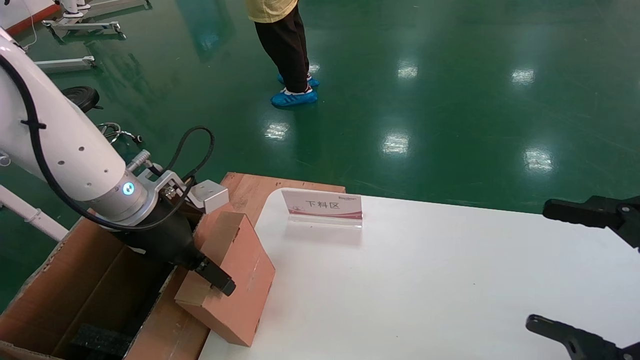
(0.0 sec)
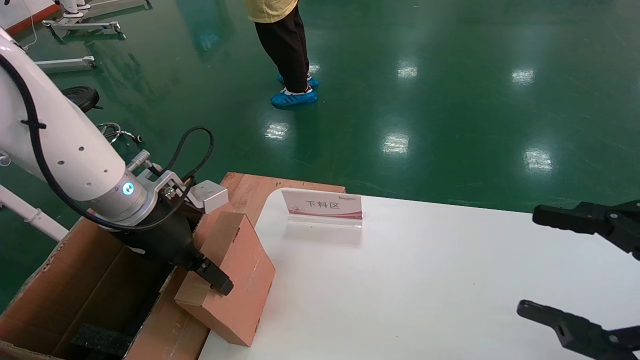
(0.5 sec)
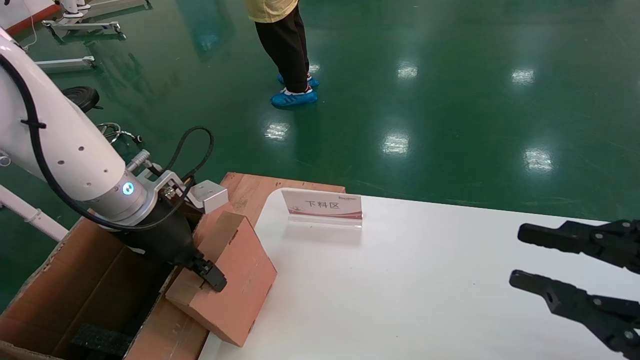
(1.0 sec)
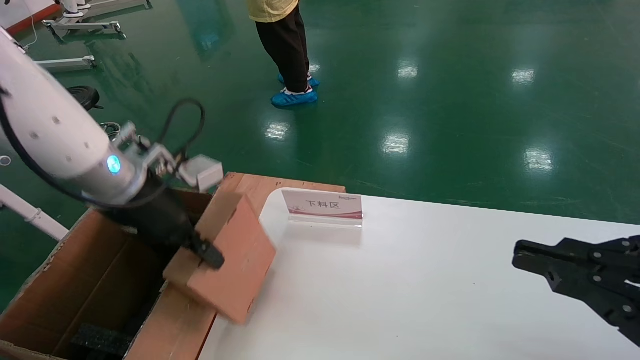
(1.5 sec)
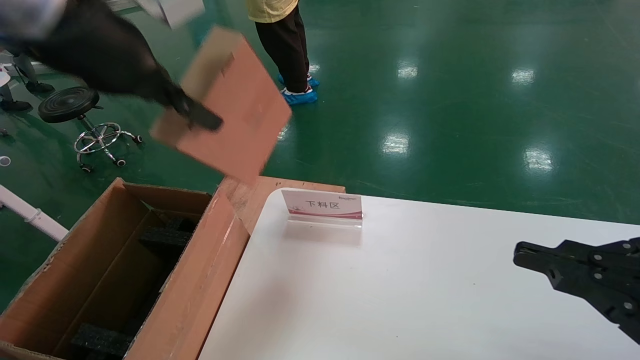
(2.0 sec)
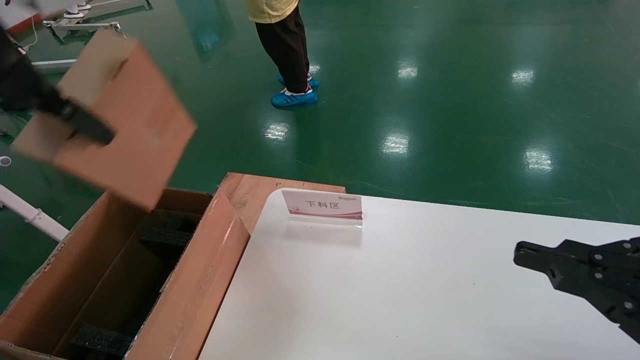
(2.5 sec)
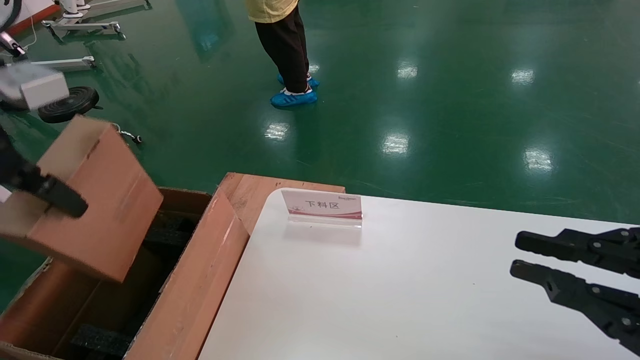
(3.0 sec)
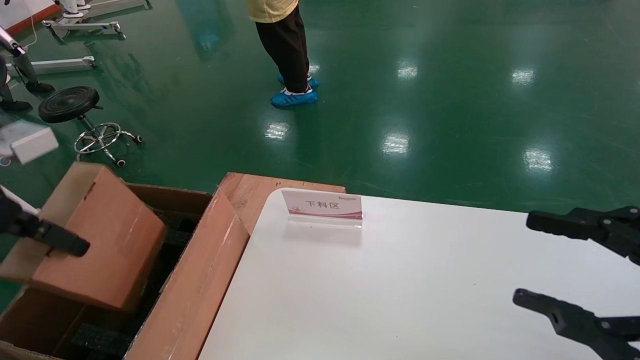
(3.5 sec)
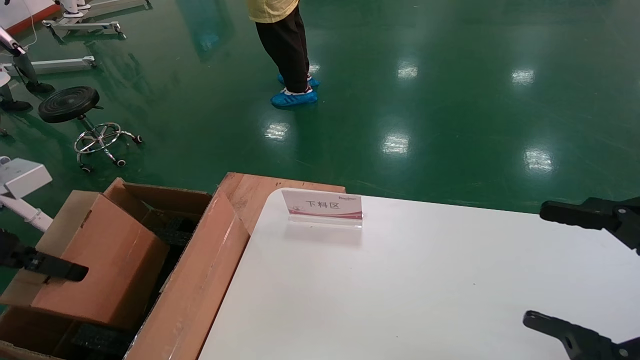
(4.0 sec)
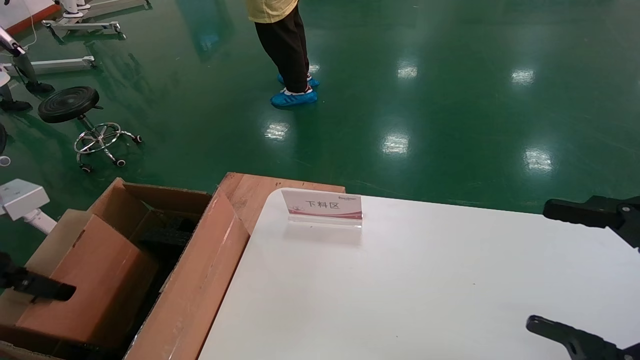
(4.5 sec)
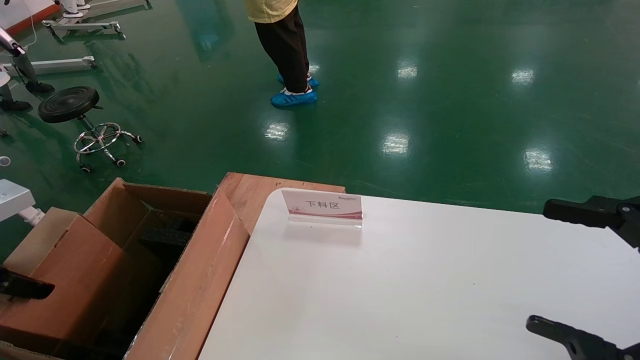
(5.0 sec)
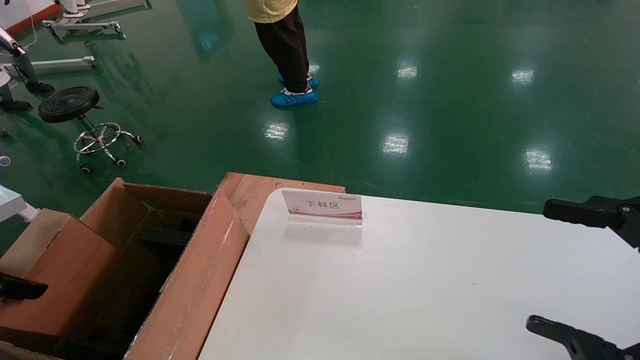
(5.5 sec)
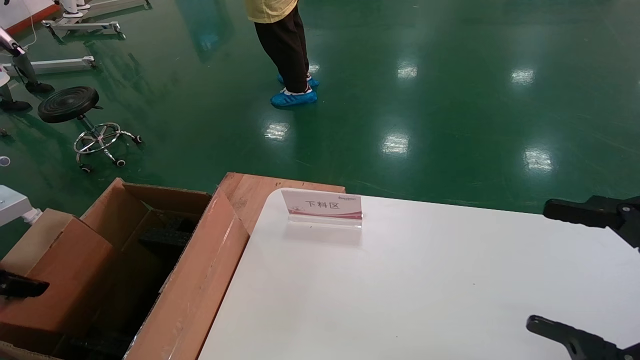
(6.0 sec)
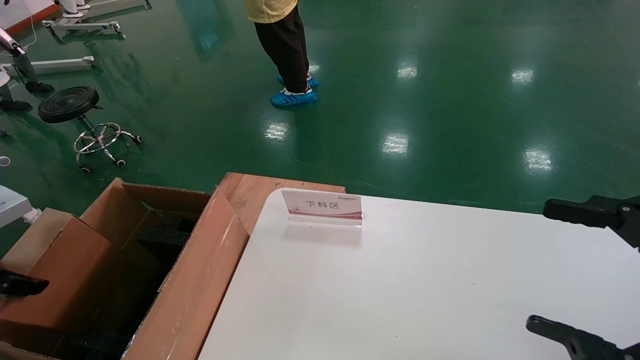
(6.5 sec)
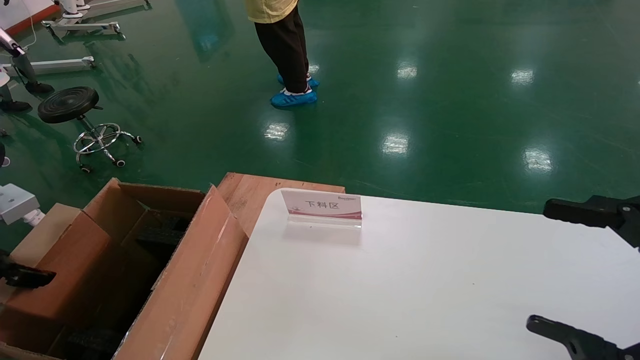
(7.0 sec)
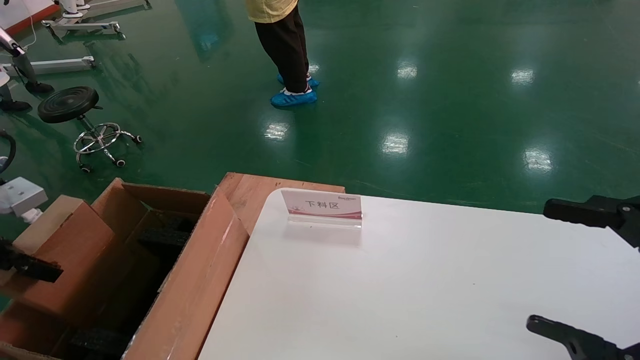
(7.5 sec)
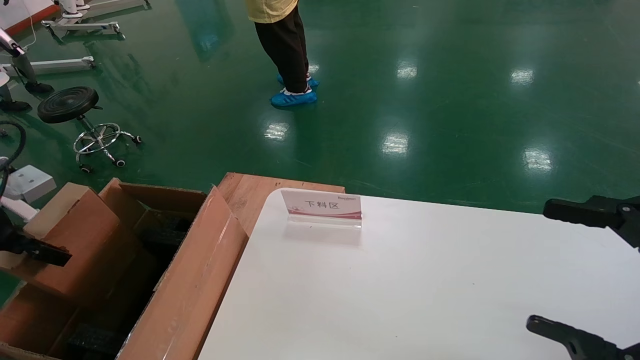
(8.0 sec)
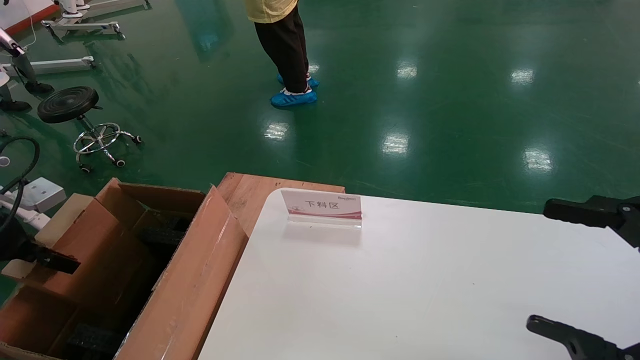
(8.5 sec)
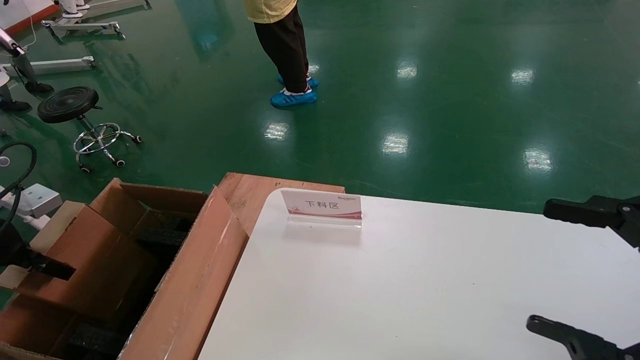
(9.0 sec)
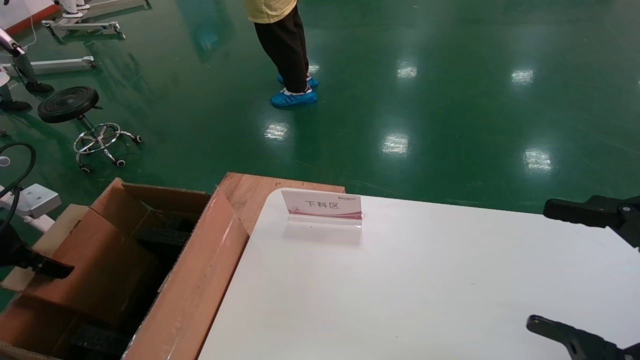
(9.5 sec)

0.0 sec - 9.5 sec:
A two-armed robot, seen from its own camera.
Task of the whole recording: pick up the small cardboard box and load it into the large cardboard box.
0.0 sec - 2.0 sec: The left gripper travels upward by about 20 cm, and closes up; the right gripper closes.
2.0 sec - 4.0 sec: The right gripper opens; the left gripper heads to the left, downward and backward, covering approximately 25 cm.
4.0 sec - 5.5 sec: The left gripper ends up roughly 5 cm from where it was.
5.5 sec - 7.5 sec: The left gripper changes place by roughly 5 cm.
7.5 sec - 9.5 sec: The left gripper moves some 5 cm.

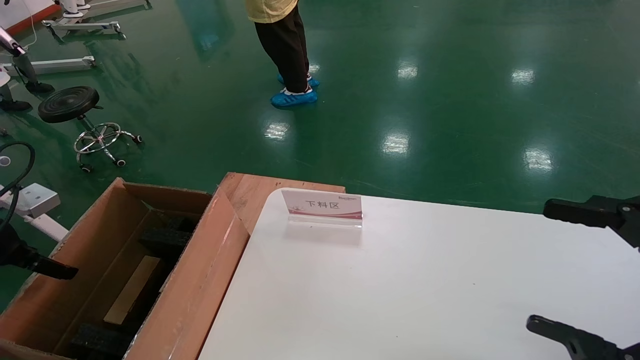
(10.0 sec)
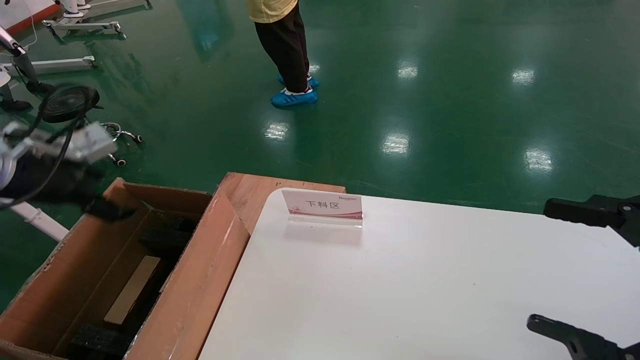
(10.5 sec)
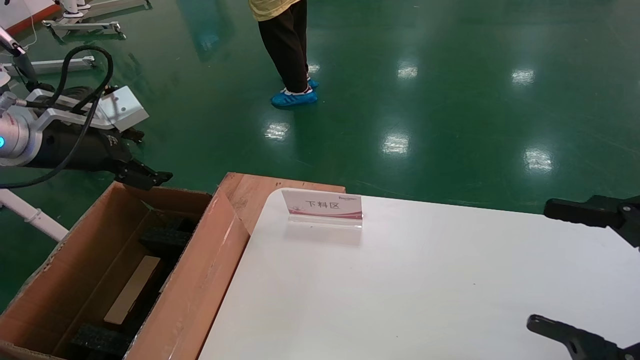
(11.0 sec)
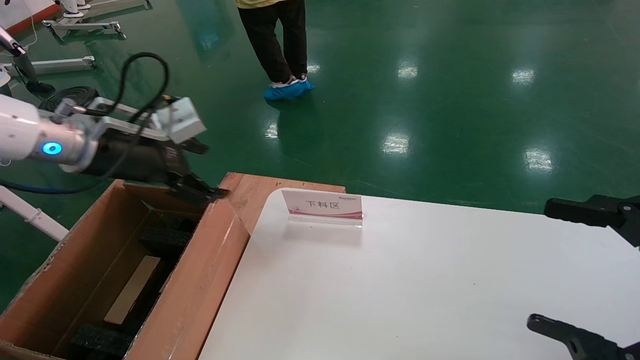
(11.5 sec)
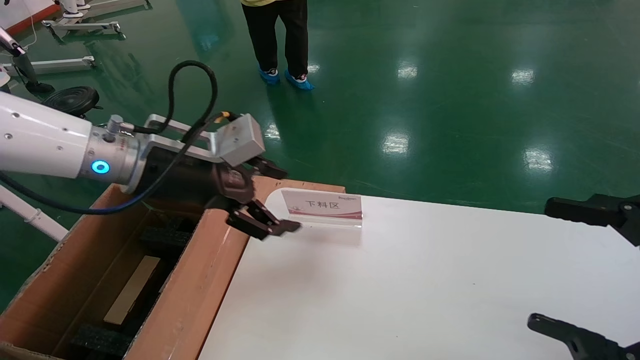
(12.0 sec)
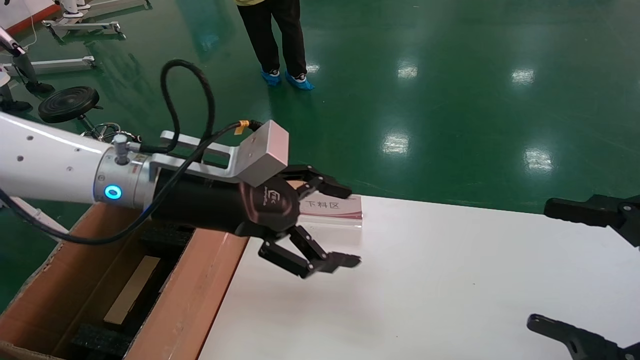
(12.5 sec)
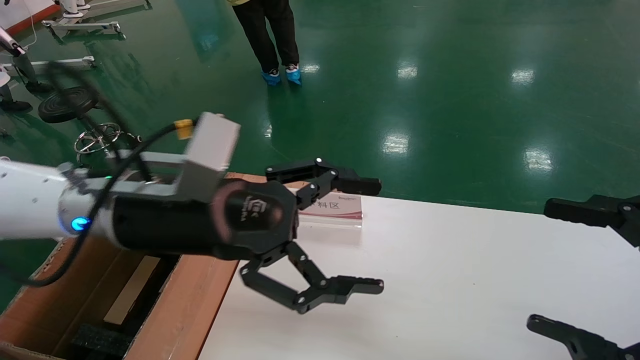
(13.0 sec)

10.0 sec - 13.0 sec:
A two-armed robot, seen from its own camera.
Task of the whole recording: pick up the small cardboard box and load it into the large cardboard box.
10.0 sec - 11.5 sec: The left gripper goes about 20 cm to the right and upward.
11.5 sec - 13.0 sec: The left gripper shifts approximately 15 cm to the right and backward.
